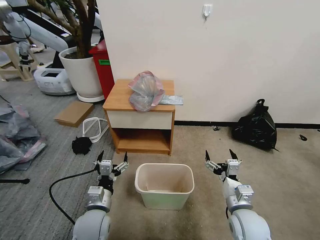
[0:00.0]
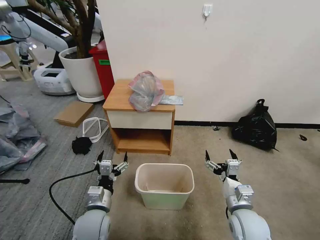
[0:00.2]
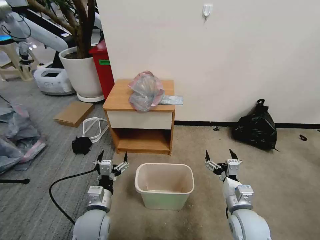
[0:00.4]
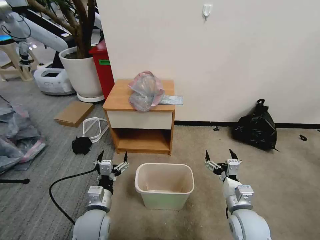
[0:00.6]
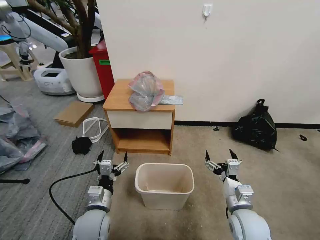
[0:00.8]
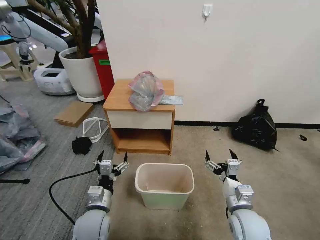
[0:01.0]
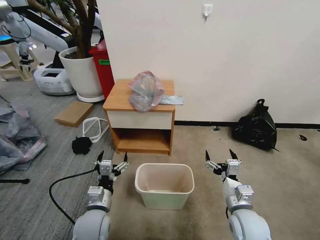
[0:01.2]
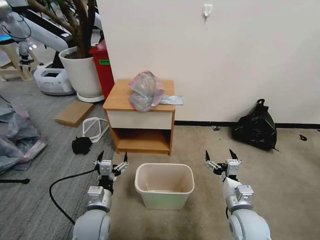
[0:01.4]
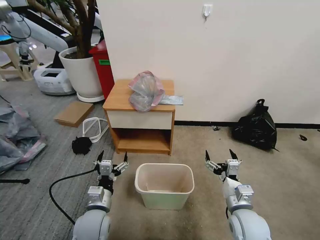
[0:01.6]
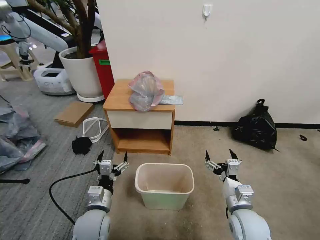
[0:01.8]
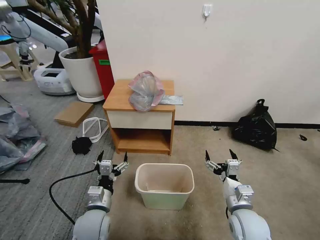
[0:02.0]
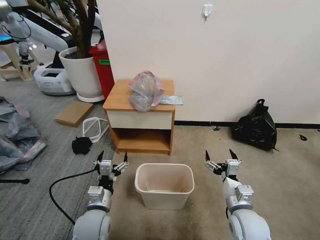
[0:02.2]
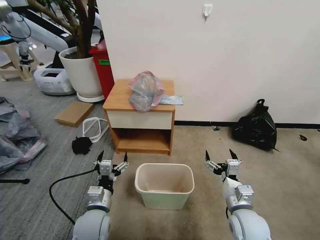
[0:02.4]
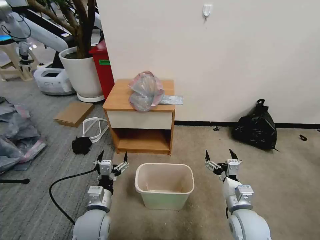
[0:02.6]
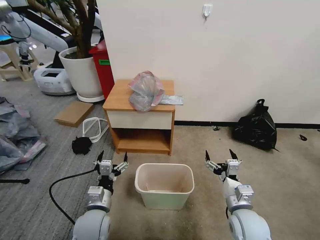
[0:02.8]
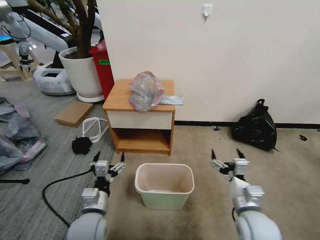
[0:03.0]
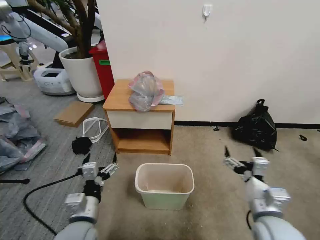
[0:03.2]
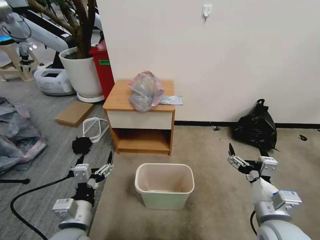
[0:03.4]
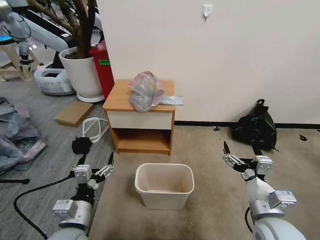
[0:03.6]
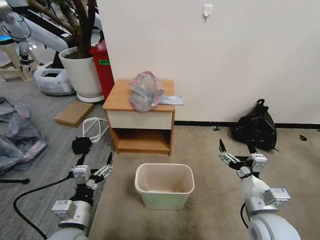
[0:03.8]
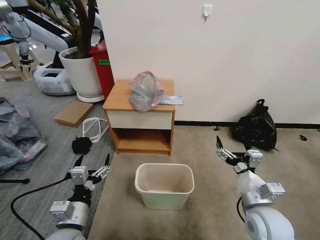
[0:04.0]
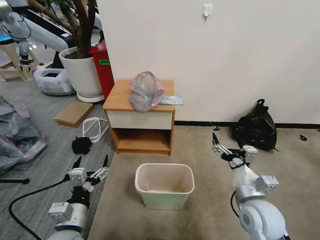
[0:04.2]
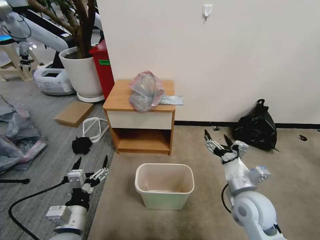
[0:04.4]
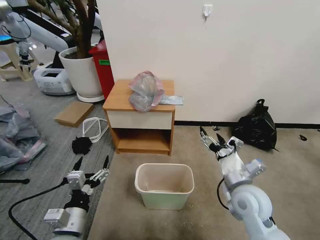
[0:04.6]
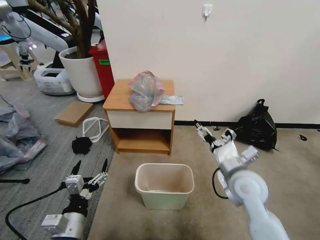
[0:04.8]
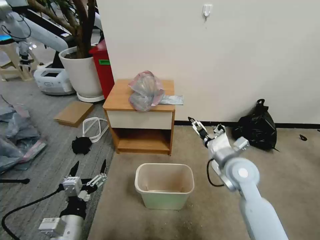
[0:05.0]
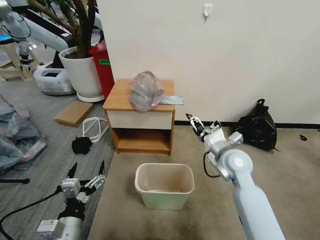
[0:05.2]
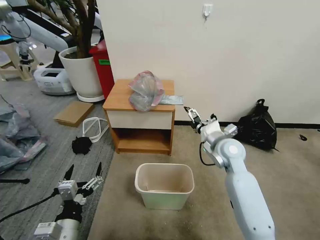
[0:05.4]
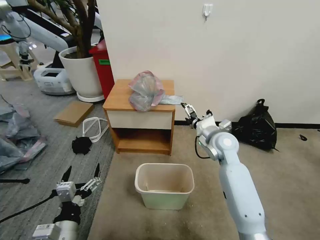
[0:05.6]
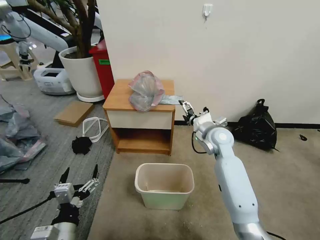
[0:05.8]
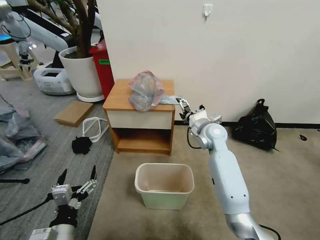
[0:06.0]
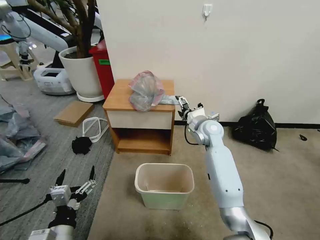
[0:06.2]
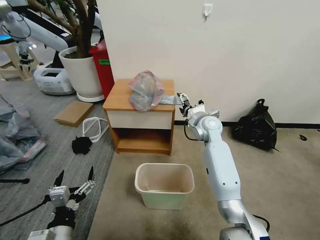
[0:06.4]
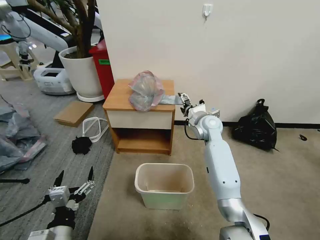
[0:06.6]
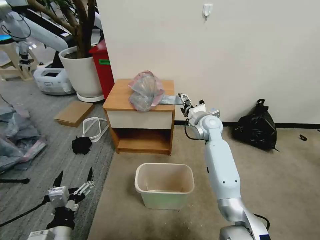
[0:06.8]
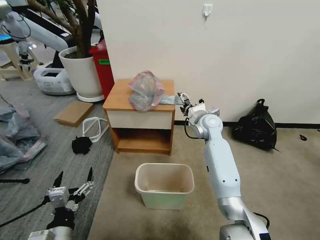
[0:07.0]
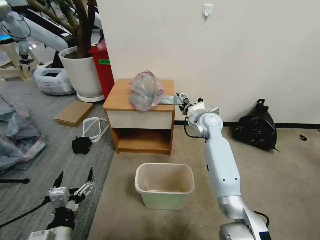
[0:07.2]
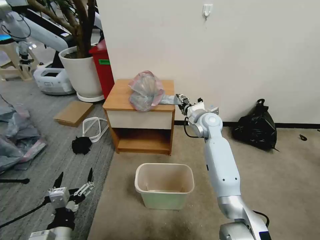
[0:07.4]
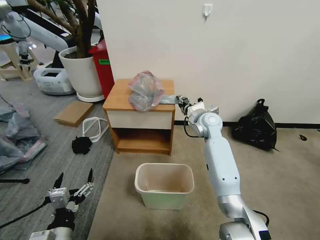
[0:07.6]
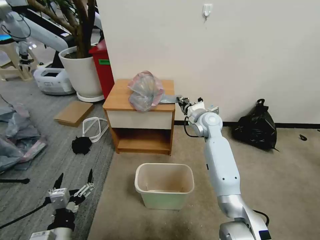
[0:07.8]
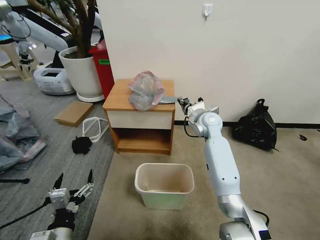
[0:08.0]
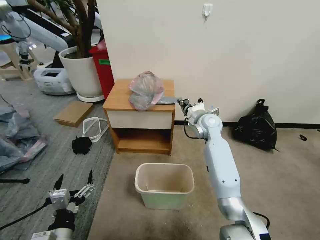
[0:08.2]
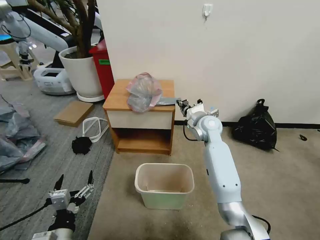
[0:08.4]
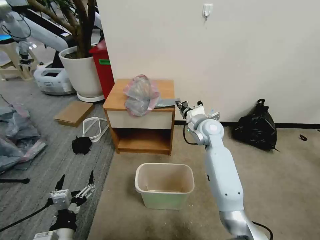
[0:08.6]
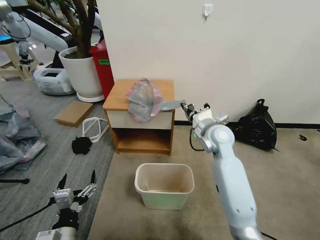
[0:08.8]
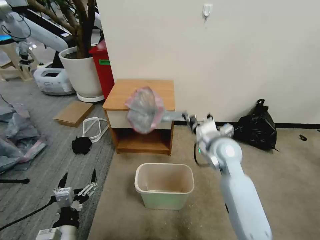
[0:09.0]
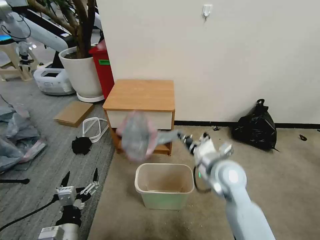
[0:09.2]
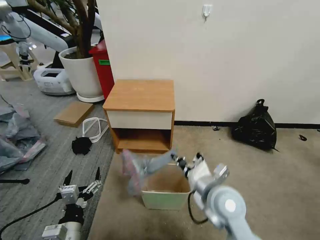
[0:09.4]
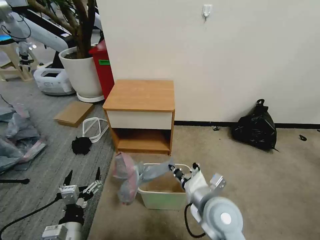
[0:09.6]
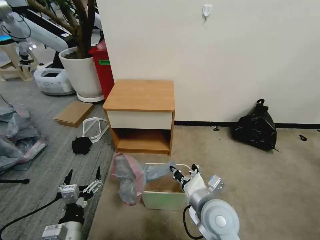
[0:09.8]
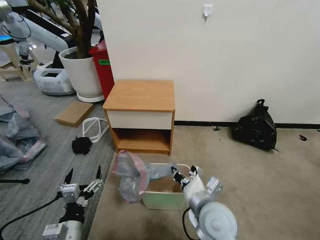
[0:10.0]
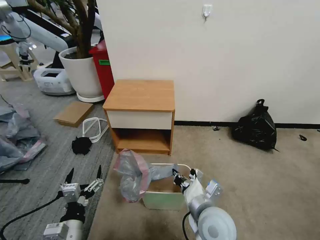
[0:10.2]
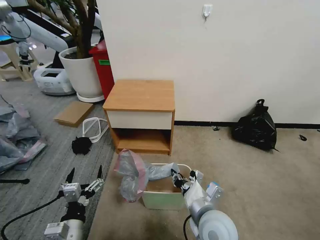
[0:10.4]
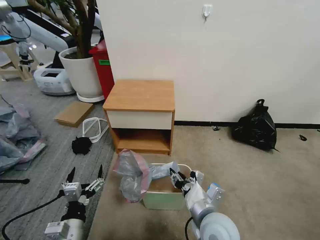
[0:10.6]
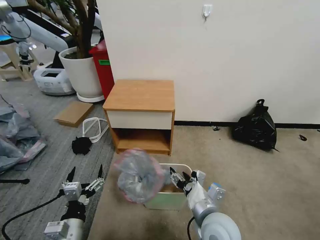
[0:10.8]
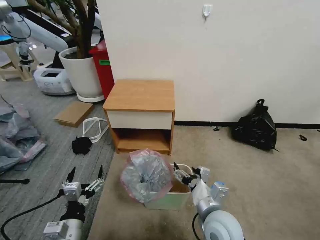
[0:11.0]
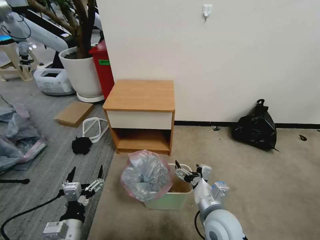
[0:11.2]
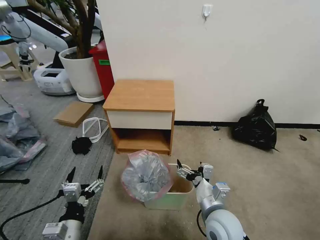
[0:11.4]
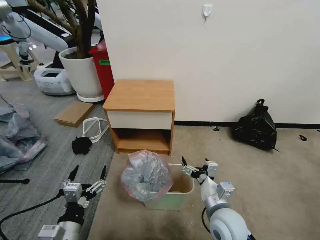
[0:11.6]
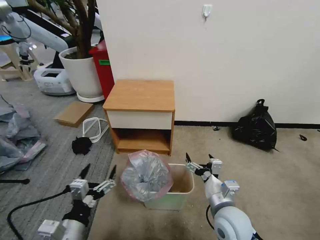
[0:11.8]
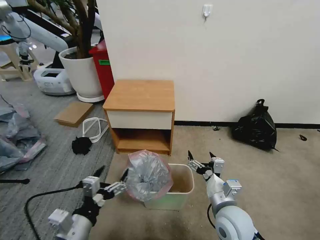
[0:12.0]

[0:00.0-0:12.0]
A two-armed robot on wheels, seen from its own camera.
Task of the whole recording: Pick up the garbage bag from the table and place it over the trash can.
0:01.6 to 0:03.0: The grippers move only a little.
0:03.0 to 0:04.4: The left gripper changes place by approximately 5 cm. The right gripper moves roughly 5 cm.
0:04.4 to 0:06.0: The right gripper heads forward, covering approximately 25 cm.
0:06.0 to 0:07.6: The right gripper changes place by some 5 cm, and closes up.
0:07.6 to 0:09.0: The right gripper moves backward, roughly 15 cm, and closes.
0:09.0 to 0:10.4: The right gripper moves backward, some 15 cm.
0:10.4 to 0:12.0: The right gripper moves to the right, about 5 cm, and opens, while the left gripper travels upward by roughly 5 cm.

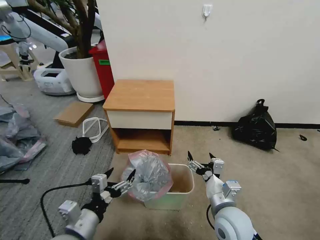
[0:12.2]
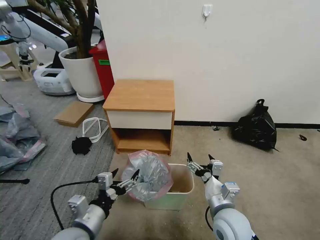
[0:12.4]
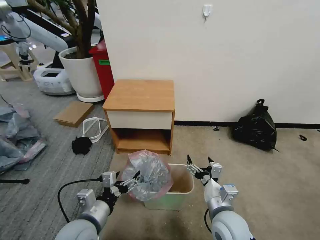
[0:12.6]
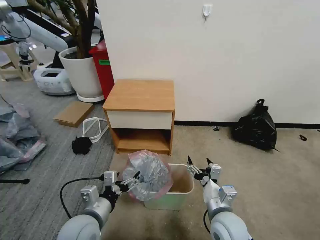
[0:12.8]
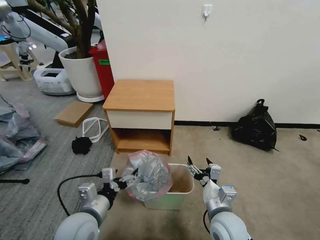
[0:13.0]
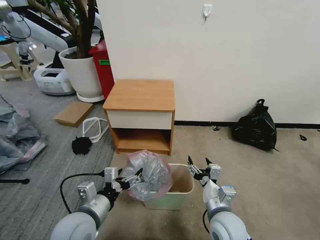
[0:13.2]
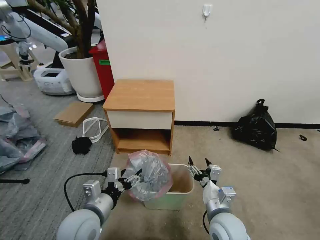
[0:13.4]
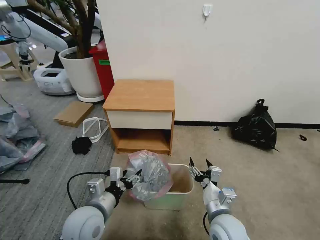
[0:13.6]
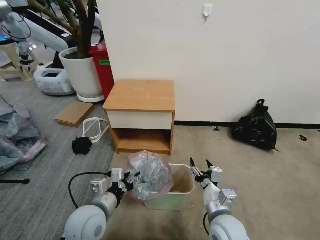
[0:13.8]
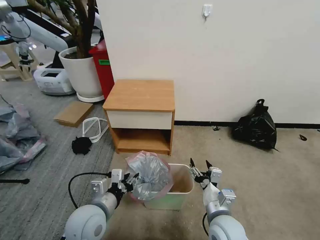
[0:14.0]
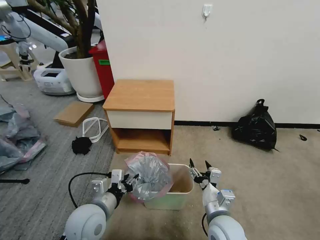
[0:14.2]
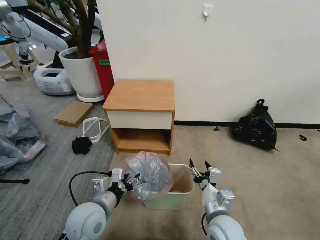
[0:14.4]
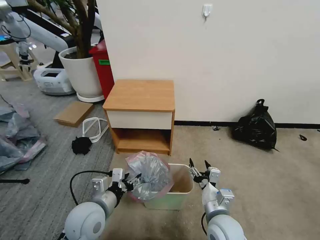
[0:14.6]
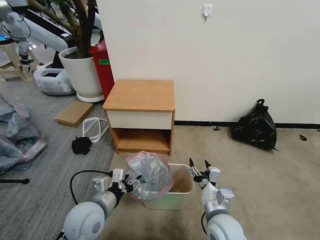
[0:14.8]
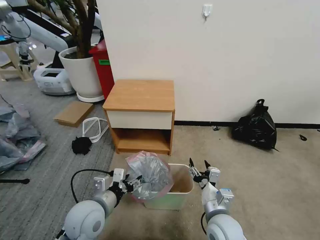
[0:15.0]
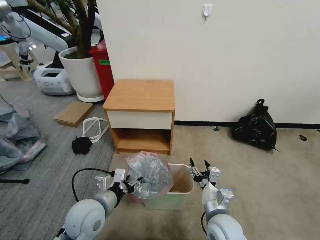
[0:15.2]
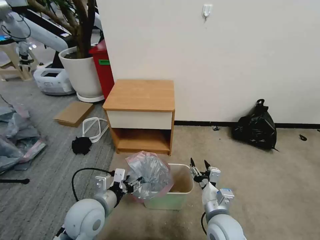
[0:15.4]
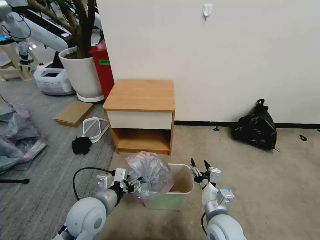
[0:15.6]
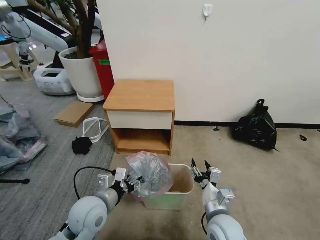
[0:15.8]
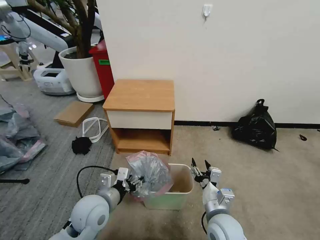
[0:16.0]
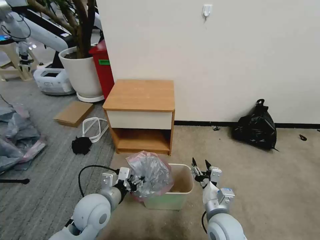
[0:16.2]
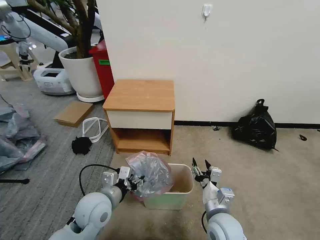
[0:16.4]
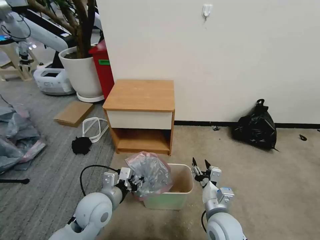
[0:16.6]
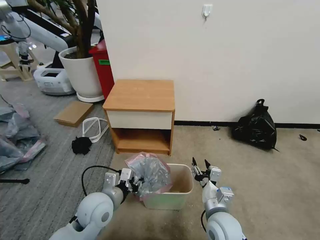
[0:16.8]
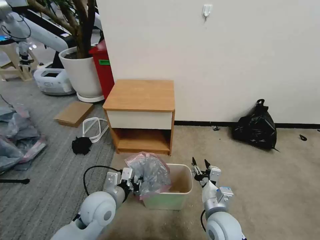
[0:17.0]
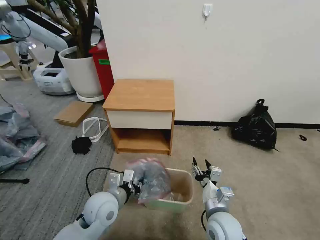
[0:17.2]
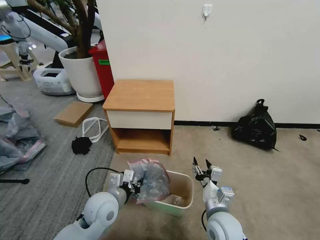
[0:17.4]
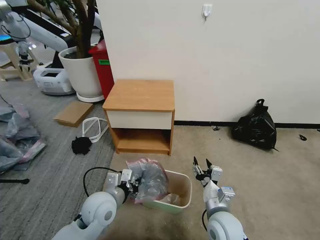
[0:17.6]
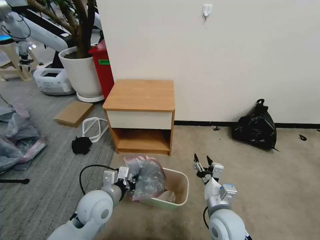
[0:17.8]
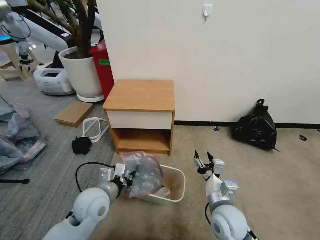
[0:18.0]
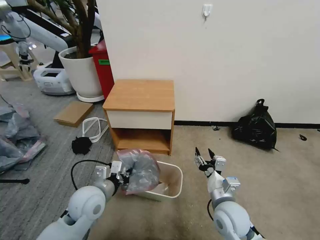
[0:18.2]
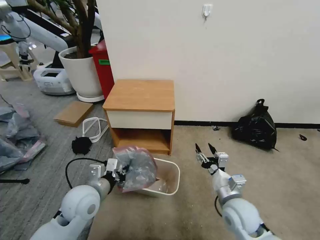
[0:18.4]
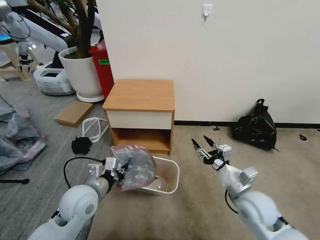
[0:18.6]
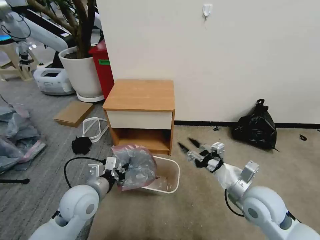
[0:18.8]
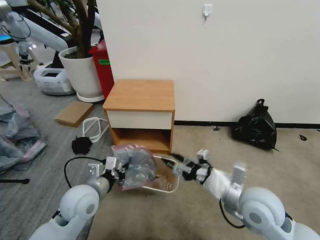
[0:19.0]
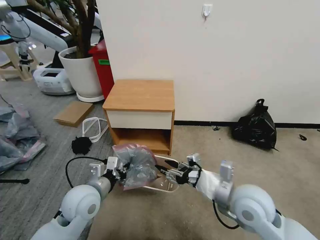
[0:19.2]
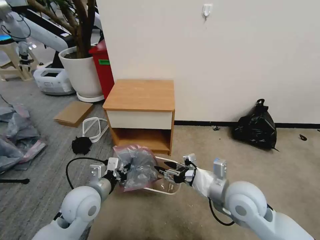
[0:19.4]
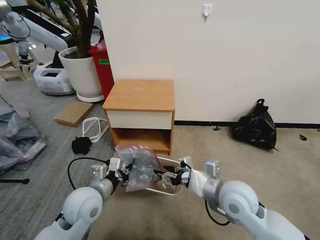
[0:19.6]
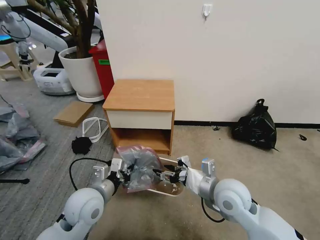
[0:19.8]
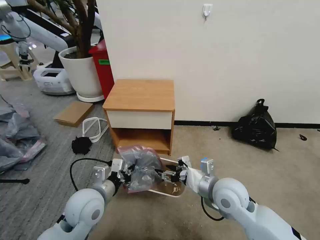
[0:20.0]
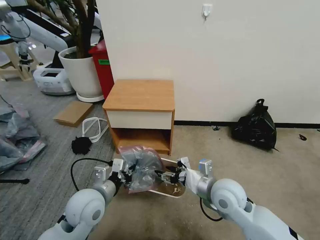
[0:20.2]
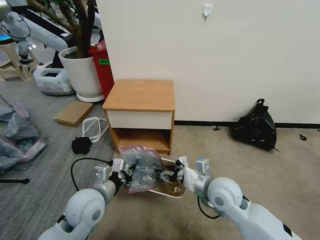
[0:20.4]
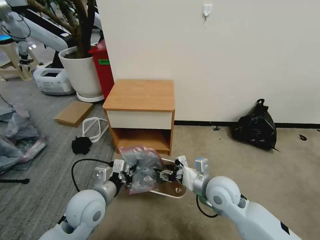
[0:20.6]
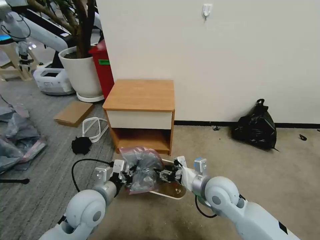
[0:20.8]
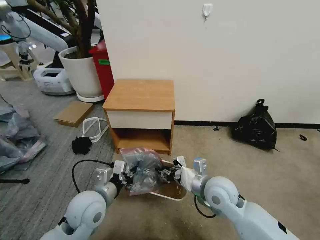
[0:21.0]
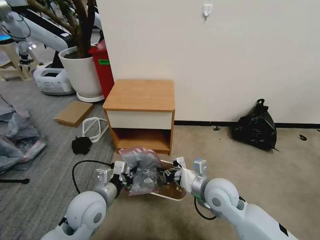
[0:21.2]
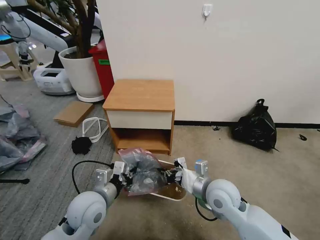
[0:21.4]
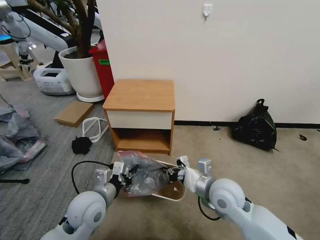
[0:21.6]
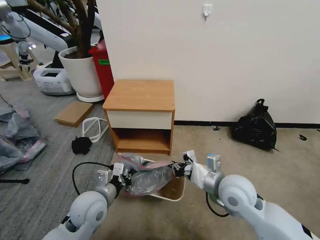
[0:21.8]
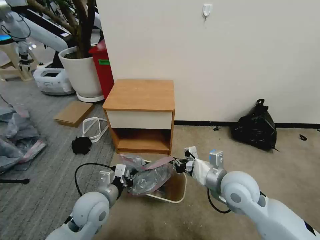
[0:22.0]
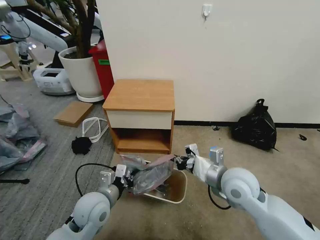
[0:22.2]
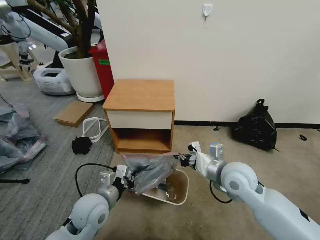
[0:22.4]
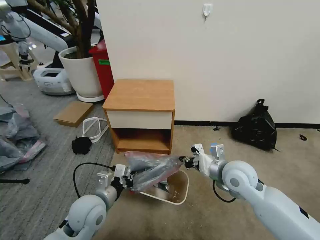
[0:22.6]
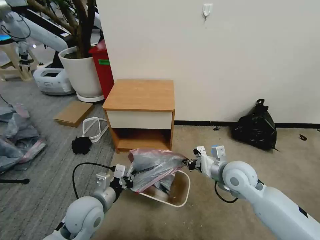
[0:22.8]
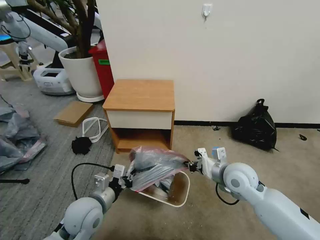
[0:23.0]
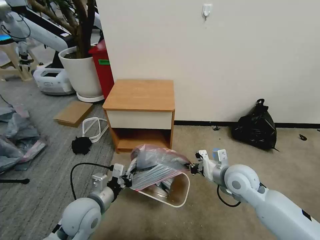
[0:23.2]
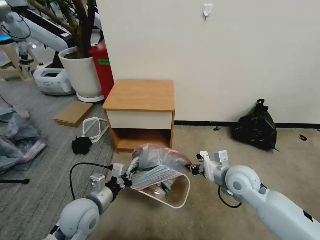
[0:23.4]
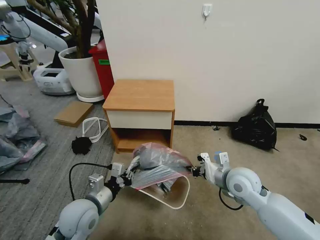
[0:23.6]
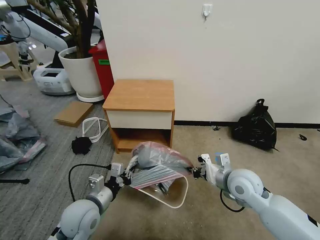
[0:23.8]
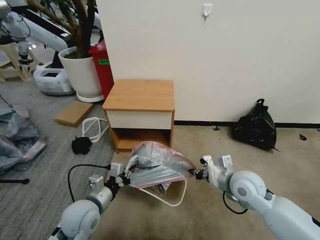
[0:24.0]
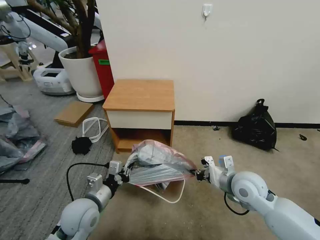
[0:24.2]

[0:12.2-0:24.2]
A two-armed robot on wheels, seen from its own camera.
Task of the whole recording: Pick up the garbage bag from the table and place it over the trash can.
0:12.2 to 0:13.8: The left gripper goes about 5 cm forward, and closes its fingers.
0:13.8 to 0:16.6: The grippers move only a little.
0:16.6 to 0:18.2: The left gripper closes.
0:18.2 to 0:19.8: The right gripper is displaced upward by some 10 cm.
0:19.8 to 0:21.2: The right gripper closes up.
0:21.2 to 0:22.6: The right gripper is displaced to the right by approximately 5 cm.
0:22.6 to 0:24.2: The grippers make only small movements.
